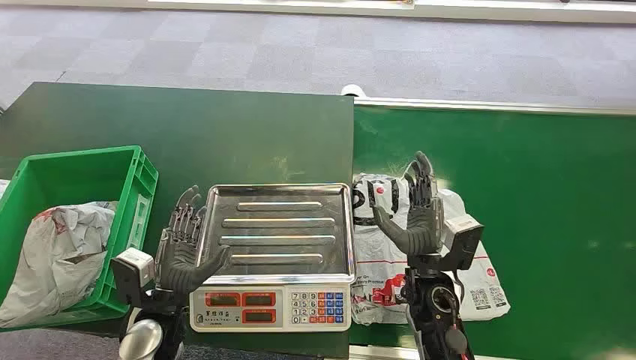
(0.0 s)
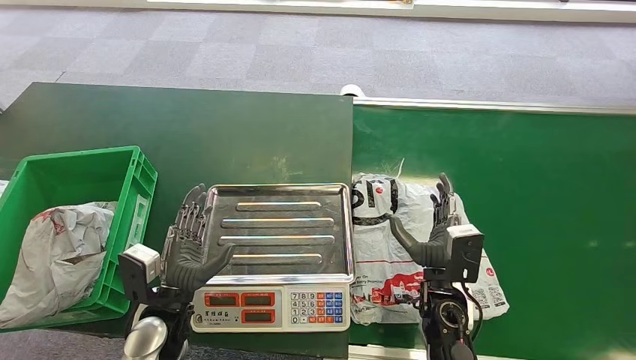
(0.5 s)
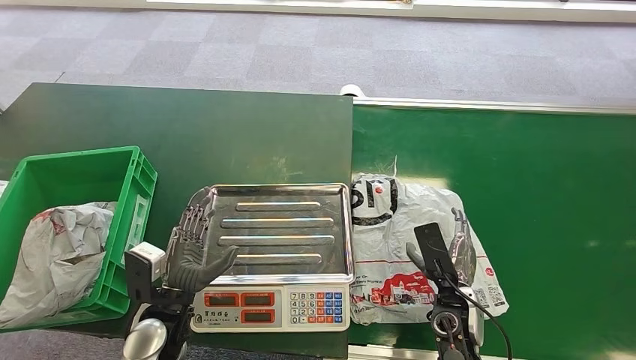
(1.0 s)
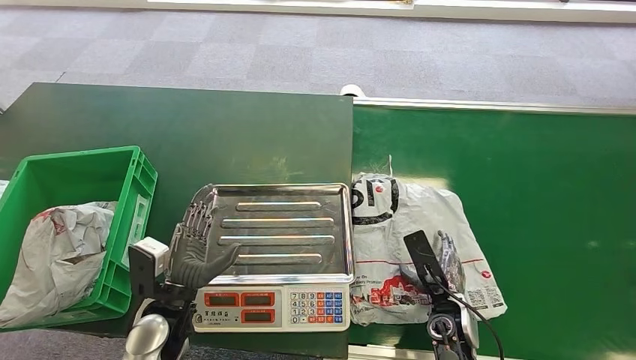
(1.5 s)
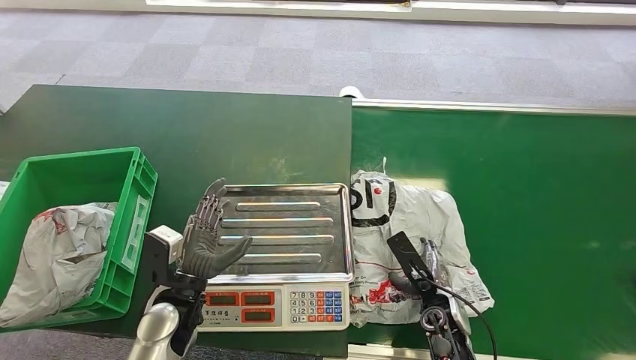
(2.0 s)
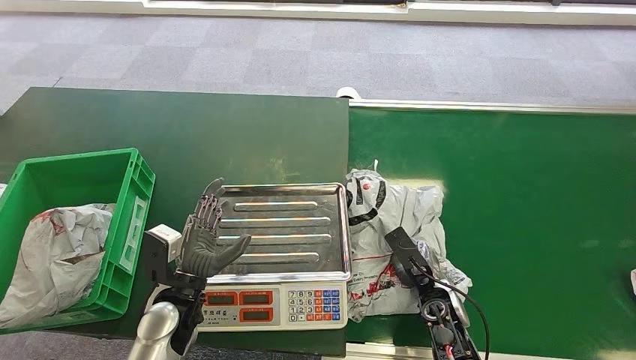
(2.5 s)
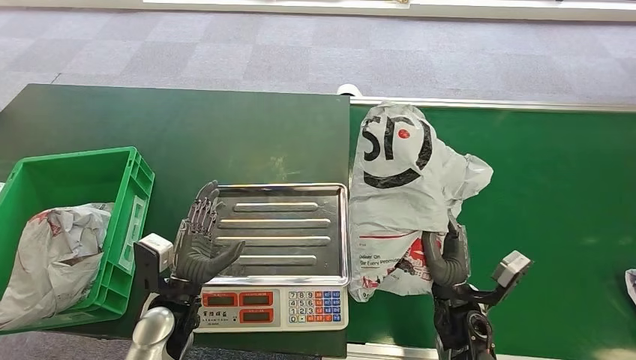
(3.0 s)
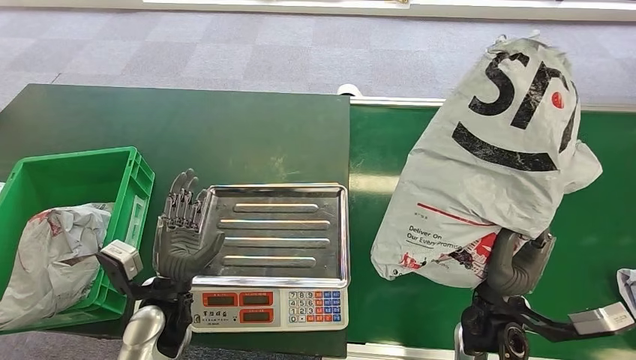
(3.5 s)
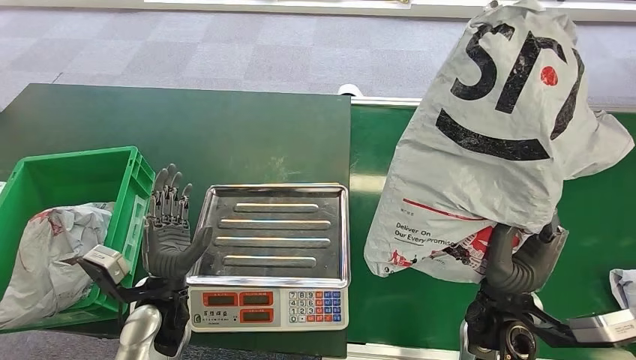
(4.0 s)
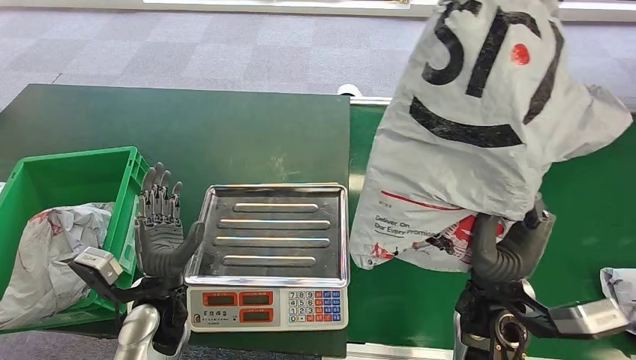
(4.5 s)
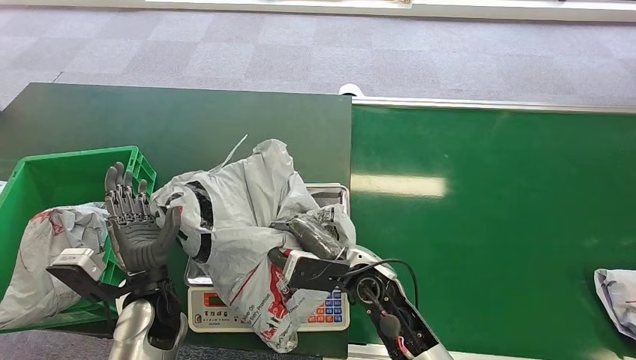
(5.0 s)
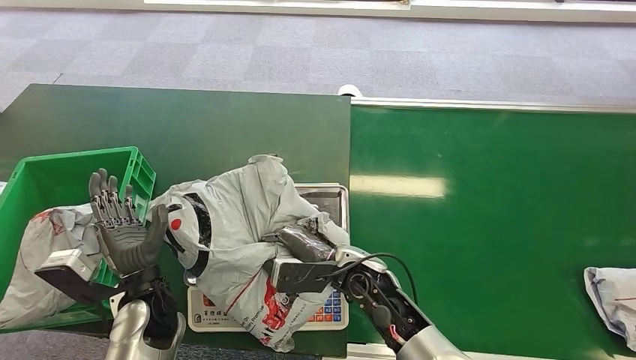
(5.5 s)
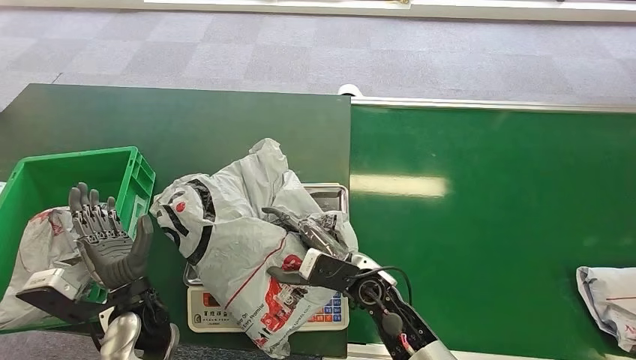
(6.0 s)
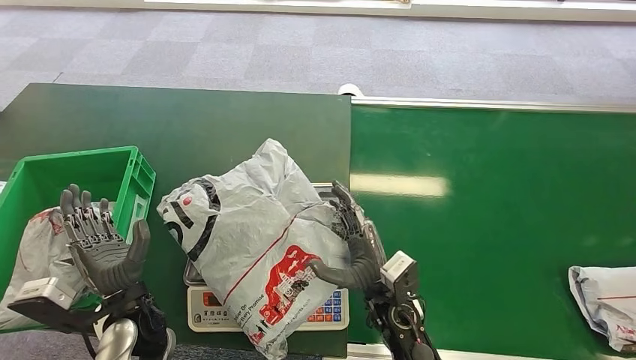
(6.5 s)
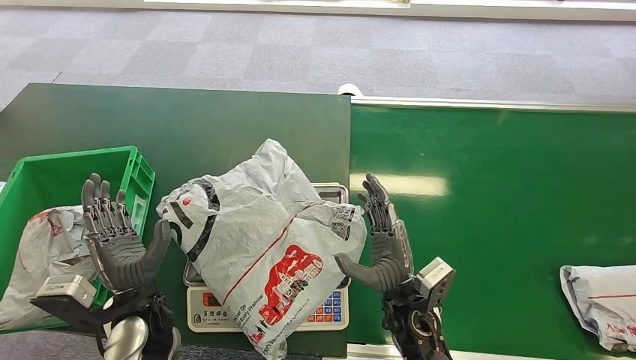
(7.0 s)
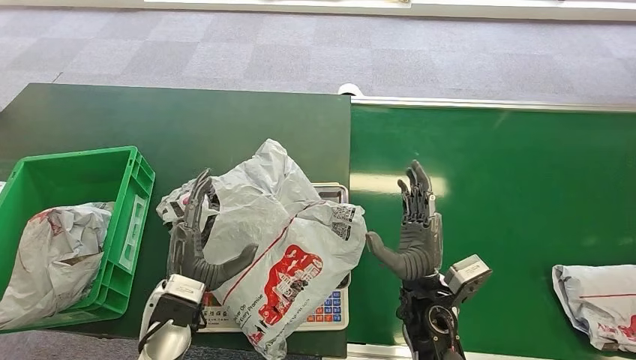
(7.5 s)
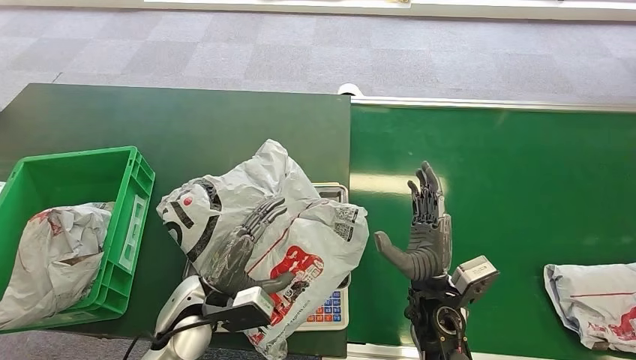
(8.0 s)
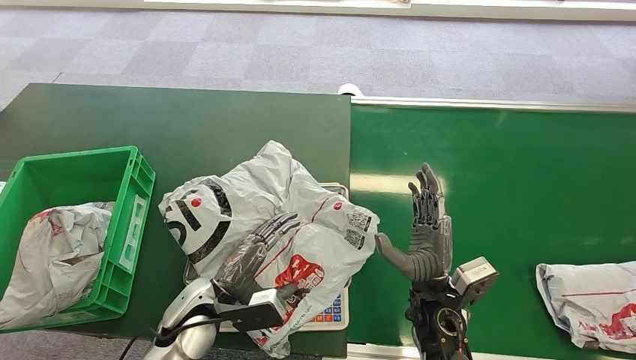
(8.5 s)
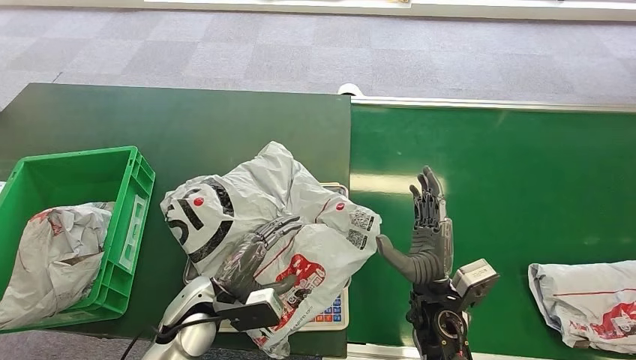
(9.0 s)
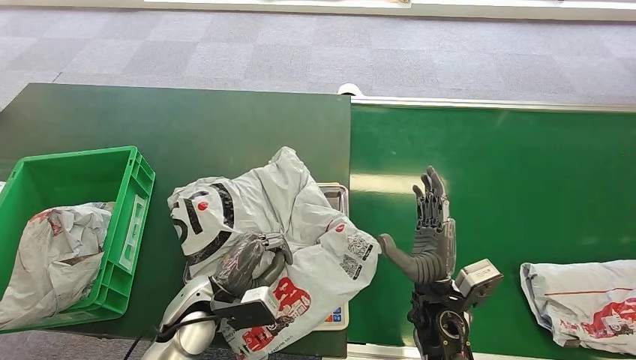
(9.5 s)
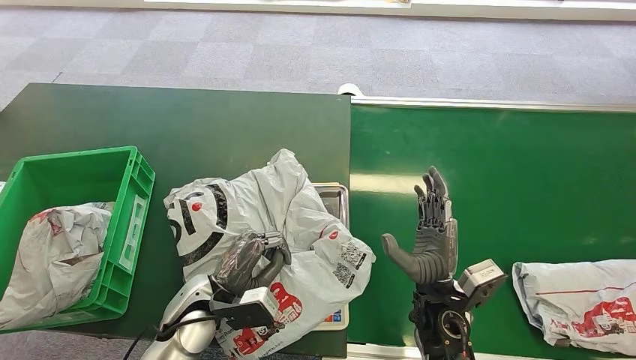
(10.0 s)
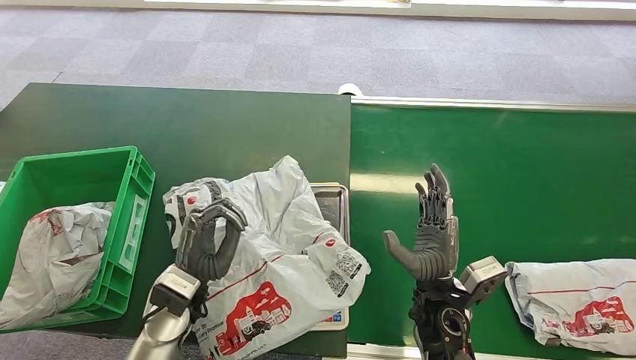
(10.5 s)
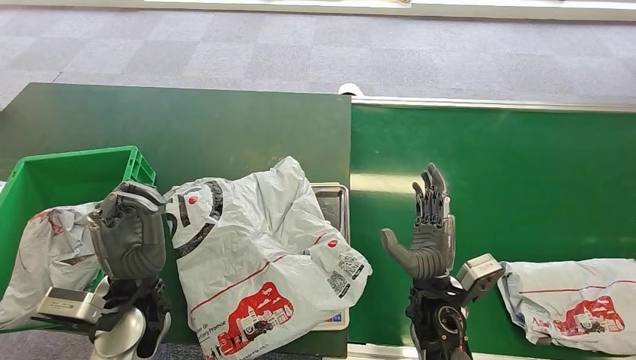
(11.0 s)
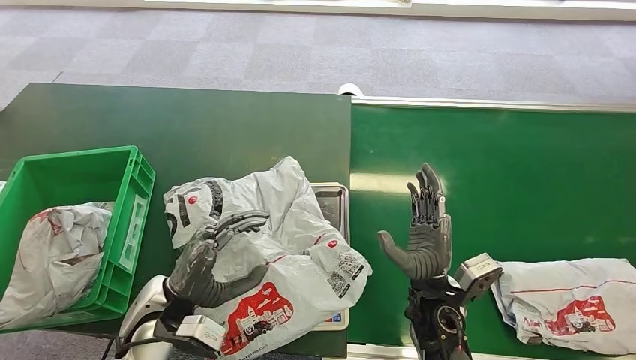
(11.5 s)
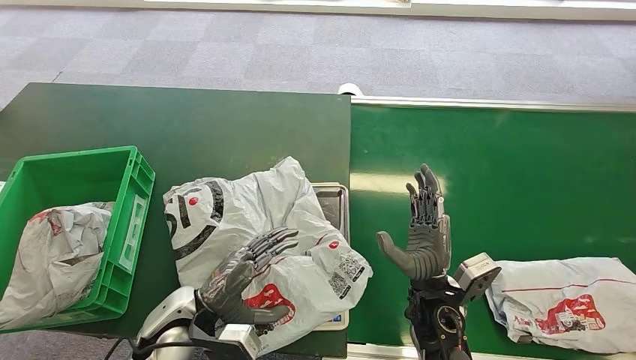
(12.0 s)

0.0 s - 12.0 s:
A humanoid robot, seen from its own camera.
Task of the whole recording: Weigh the package on the weighing device and place it in the left basket.
Step, 0.0 s - 3.0 s: Pick up the package from the conveyor belt.
Step, 3.5 s - 7.0 s: Place the package onto the inbound machine.
8.0 s - 10.0 s: The hands make only small movements.
10.0 s - 12.0 s: The left hand moves roughly 10 cm upward and comes back.

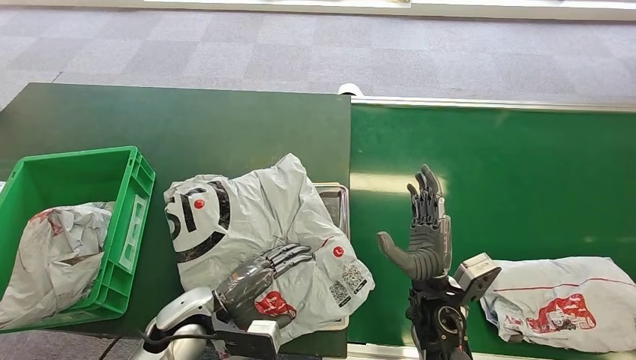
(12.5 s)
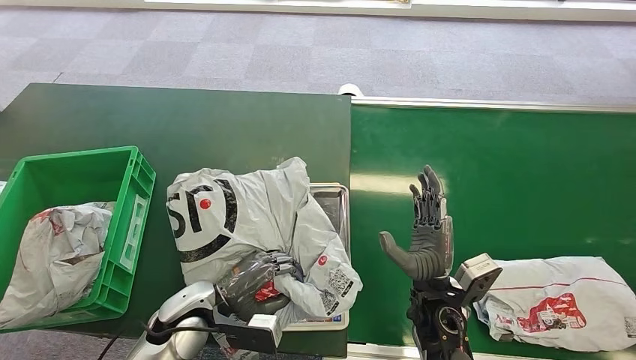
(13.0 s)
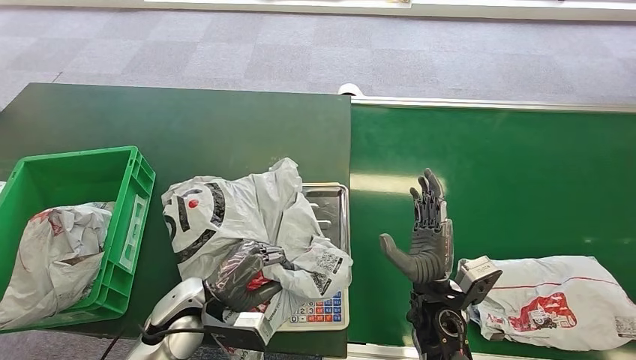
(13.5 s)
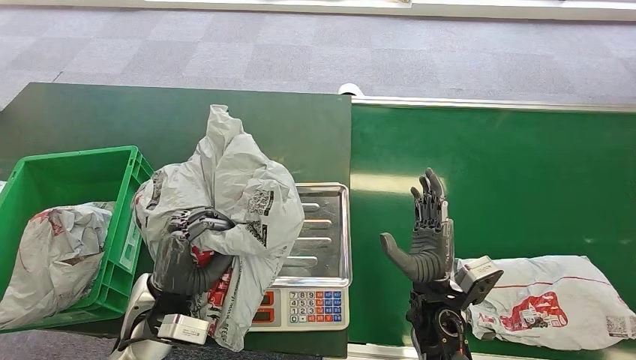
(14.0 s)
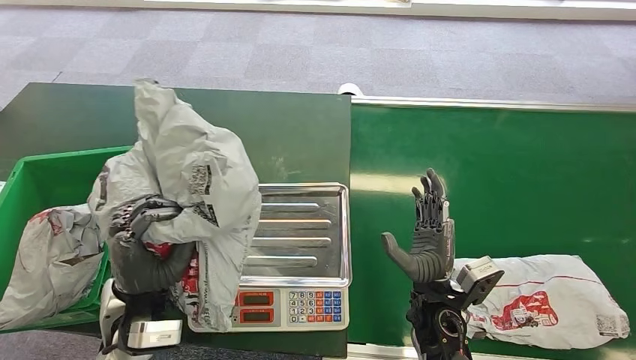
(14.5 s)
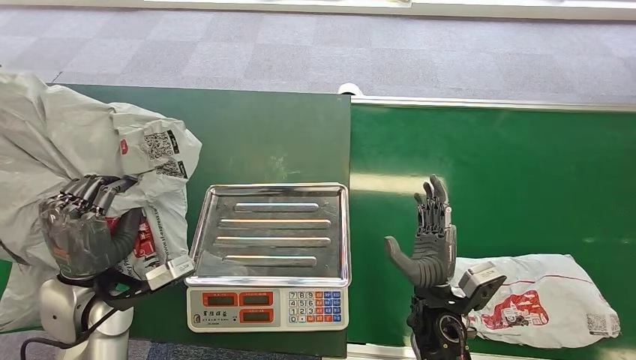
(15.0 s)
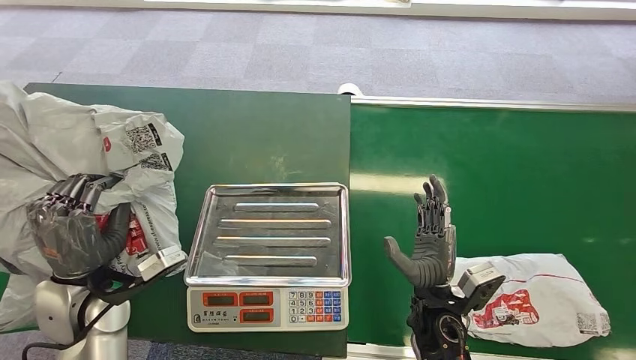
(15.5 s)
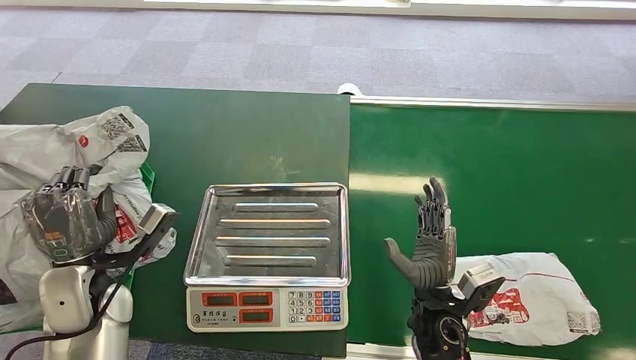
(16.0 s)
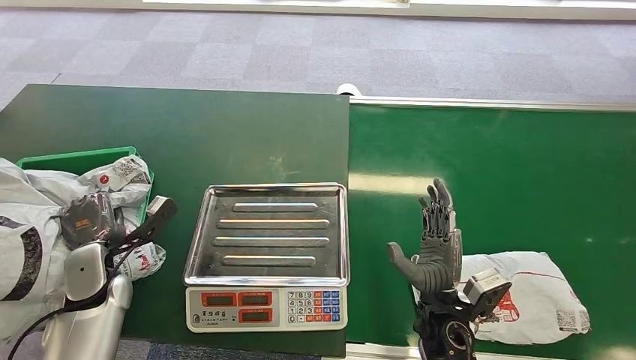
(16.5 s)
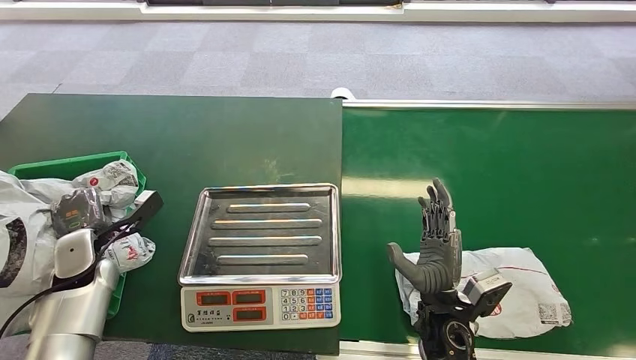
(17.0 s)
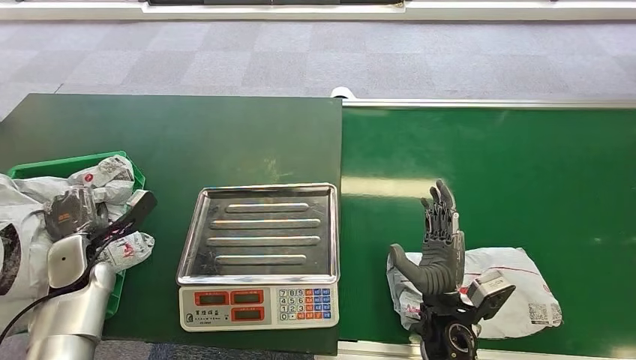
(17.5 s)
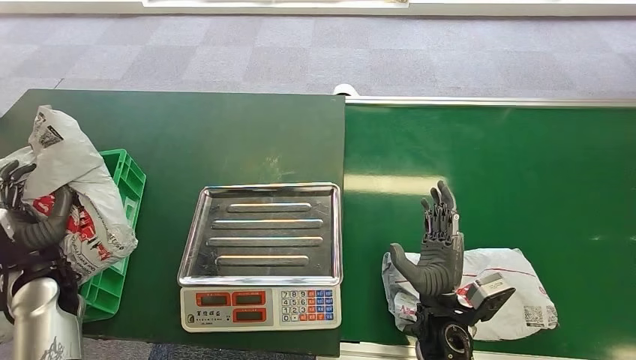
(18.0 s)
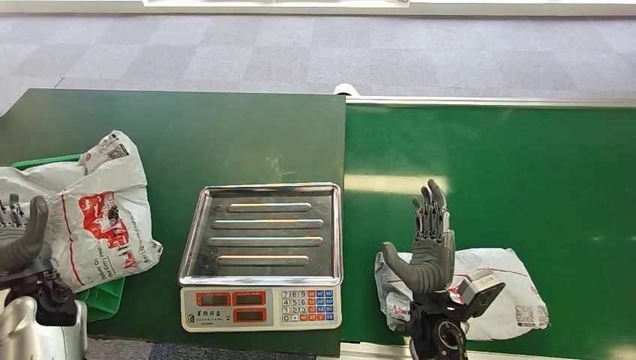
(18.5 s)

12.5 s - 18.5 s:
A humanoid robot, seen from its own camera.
Task of the whole recording: Weigh the package on the weighing device and place it in the left basket.
Step, 12.5 s - 14.5 s: Pick up the package from the inbound machine.
Step, 15.0 s - 18.5 s: Place the package into the parcel locker.
